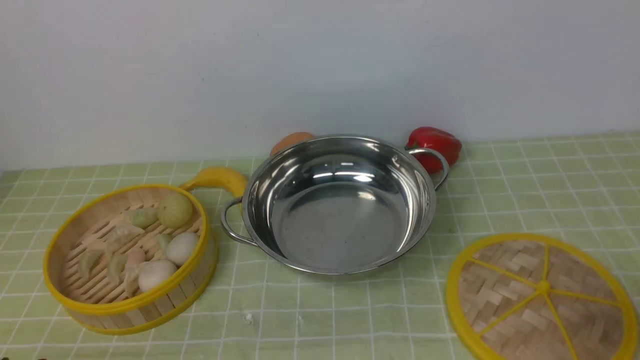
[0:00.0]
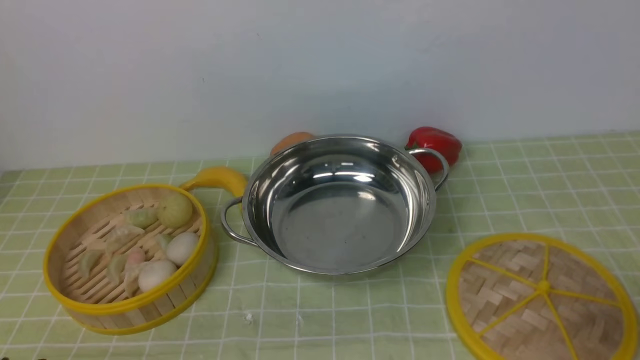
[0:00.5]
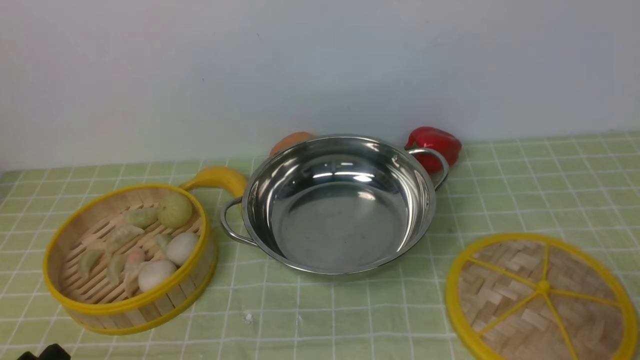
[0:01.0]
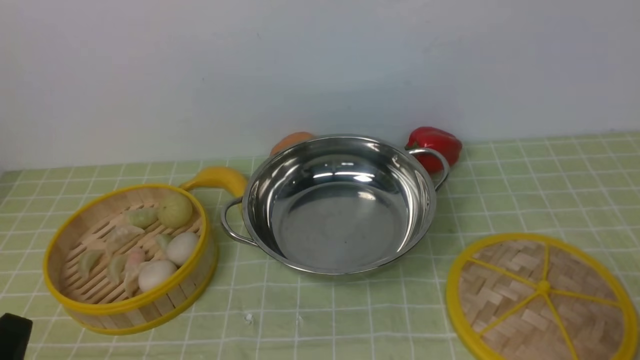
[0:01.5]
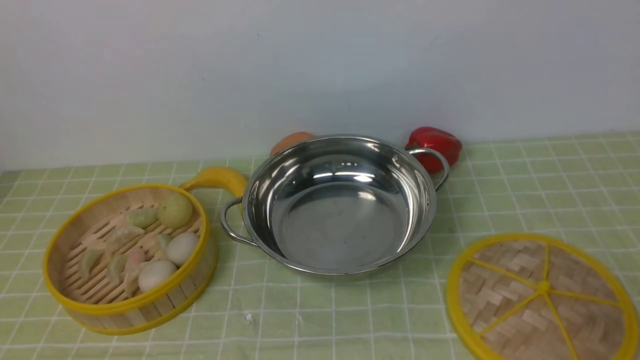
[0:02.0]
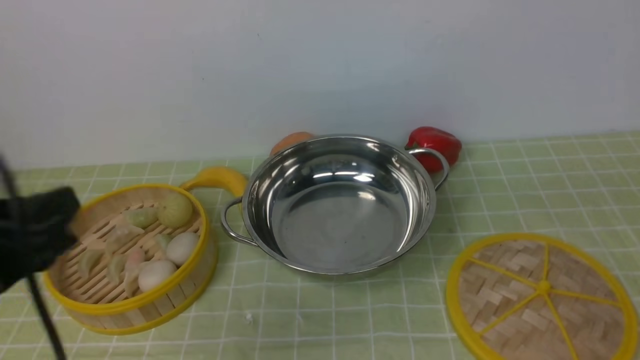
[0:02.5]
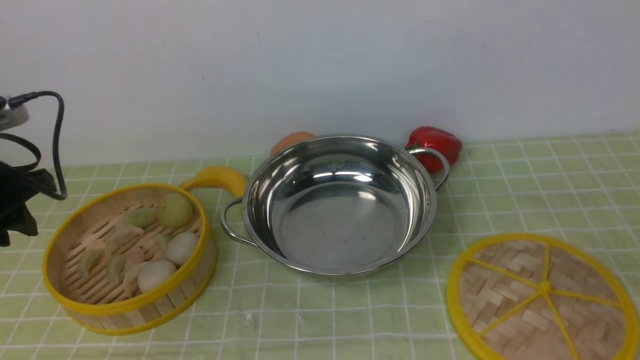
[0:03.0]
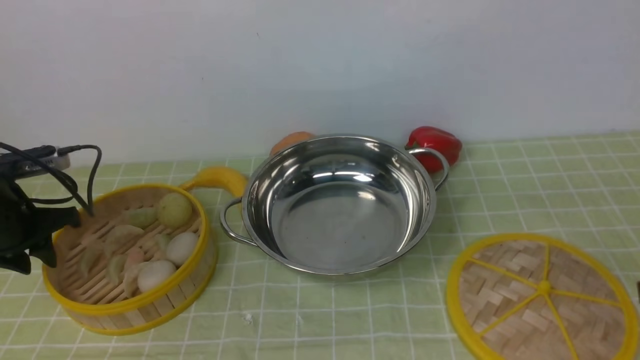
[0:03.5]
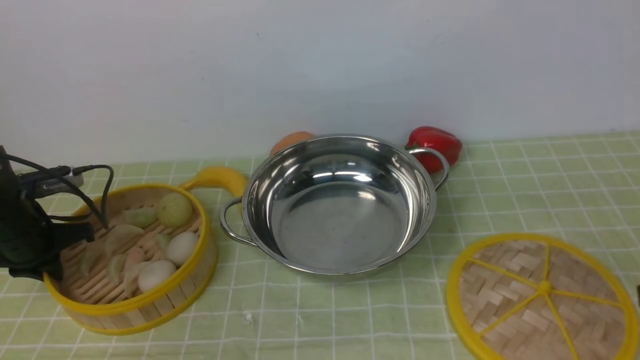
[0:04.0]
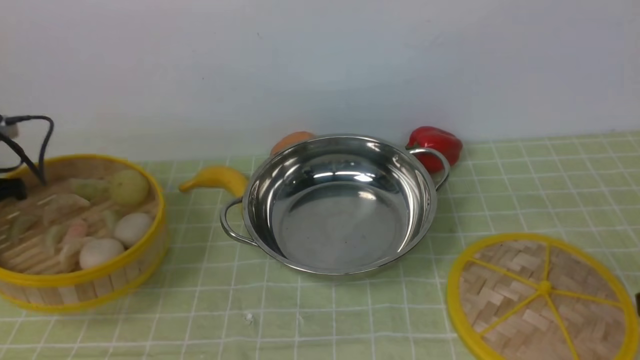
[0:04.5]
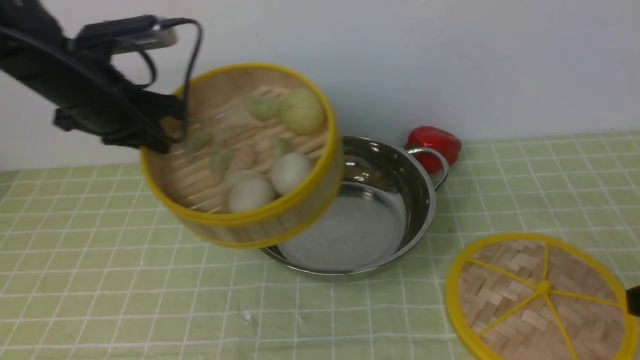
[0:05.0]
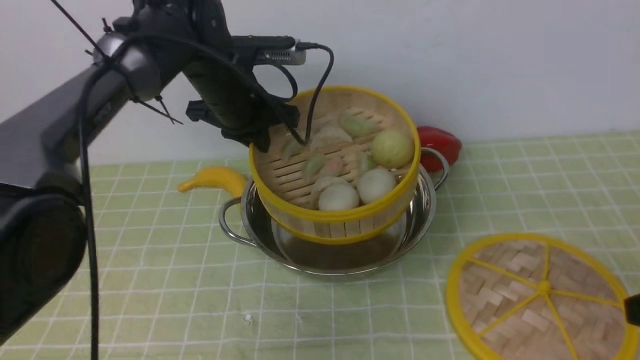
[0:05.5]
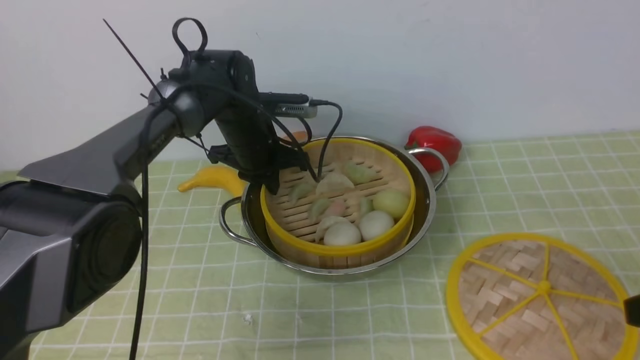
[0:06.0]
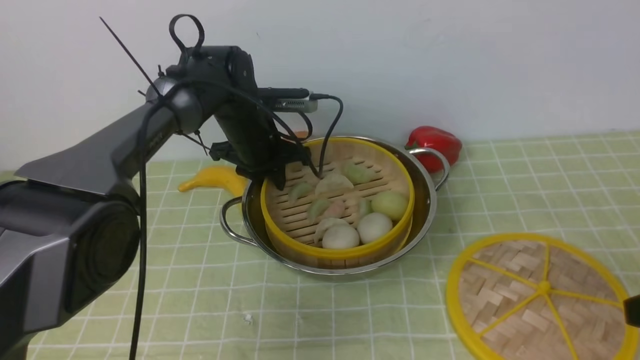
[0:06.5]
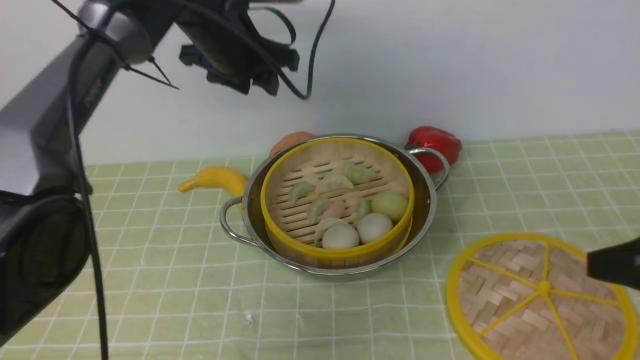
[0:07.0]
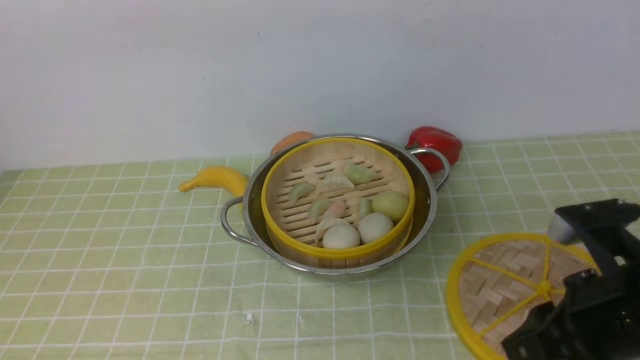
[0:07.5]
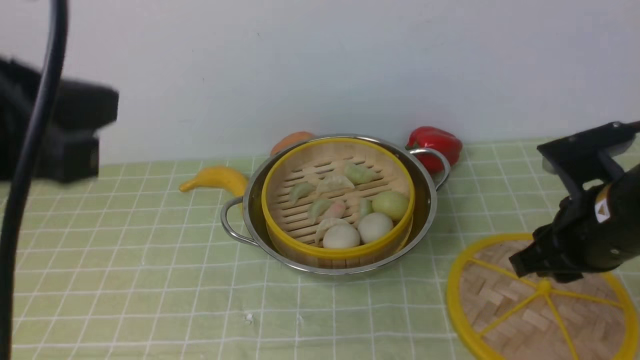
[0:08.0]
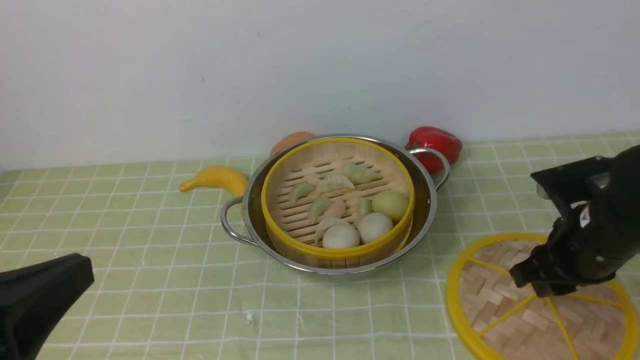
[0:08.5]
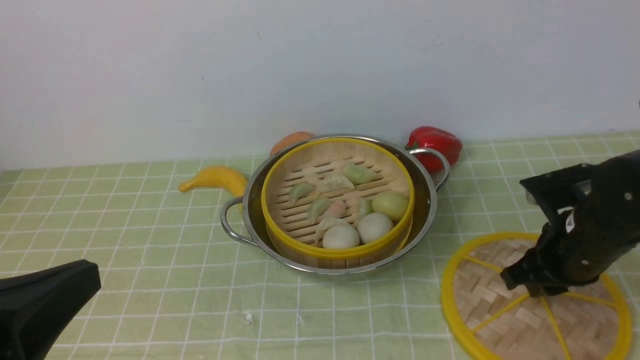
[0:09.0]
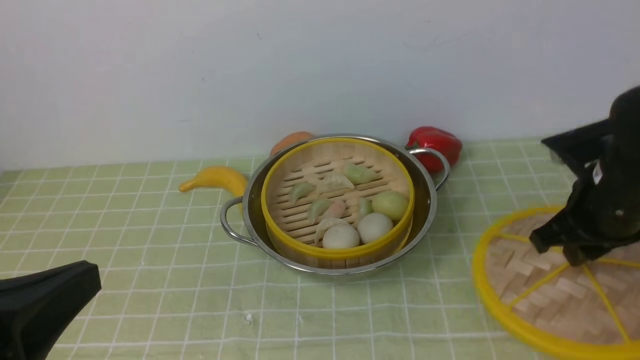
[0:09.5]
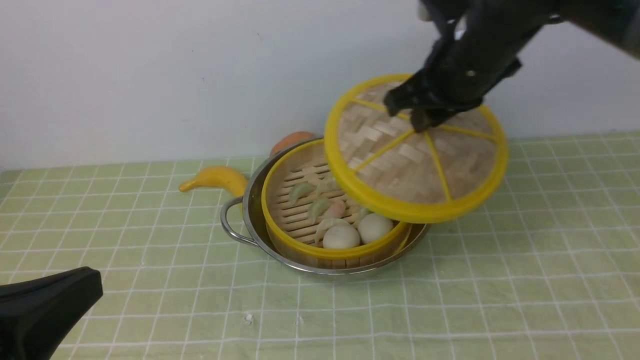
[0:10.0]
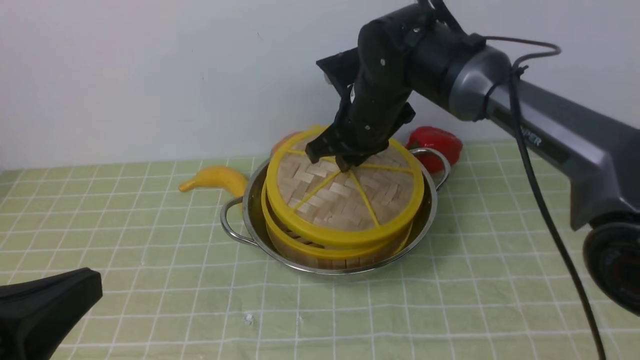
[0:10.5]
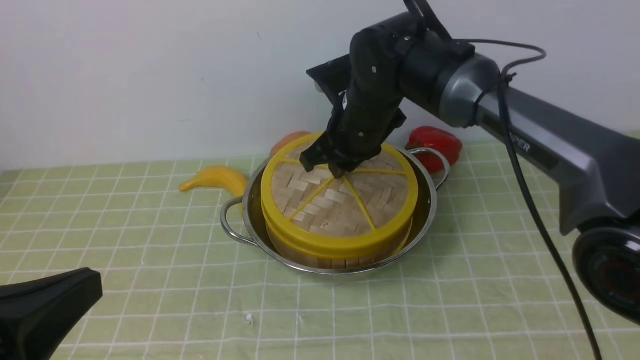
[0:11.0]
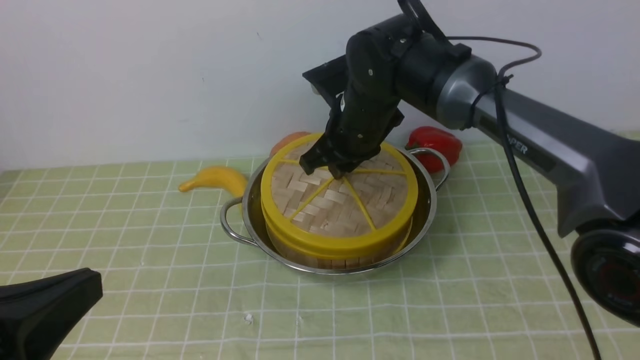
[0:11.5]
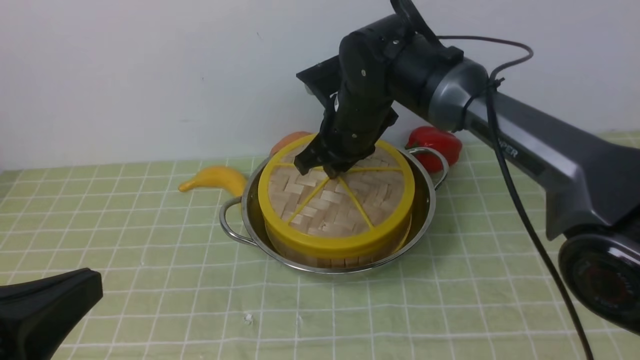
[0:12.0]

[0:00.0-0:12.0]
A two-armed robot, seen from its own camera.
Task of the whole recording: place the steamer in the pot on the green tablecloth, and put the lid on the steamer.
Step, 0:00.0 to 0:04.5: use the left arm to lift the steamer closest to it.
Step, 0:05.0 to 0:07.0: use the left arm to put the steamer into the iron steamer pot in the middle.
Step, 0:07.5 to 0:09.5: use the right arm to lift the lid of the steamer.
0:02.0 to 0:04.0: The left gripper goes about 35 cm forward and downward, and closes its fingers.
0:04.0 to 0:06.0: The left gripper is displaced to the right and forward by approximately 30 cm.
0:06.0 to 0:08.0: The right gripper goes approximately 10 cm forward and to the left. The left gripper heads backward and upward, covering some 40 cm, and opens, then closes again.
0:08.0 to 0:10.0: The right gripper shifts some 20 cm forward, to the left and upward. The left gripper heads downward and backward, covering some 10 cm.
0:10.0 to 0:12.0: The right gripper heads to the left and downward, covering some 15 cm.

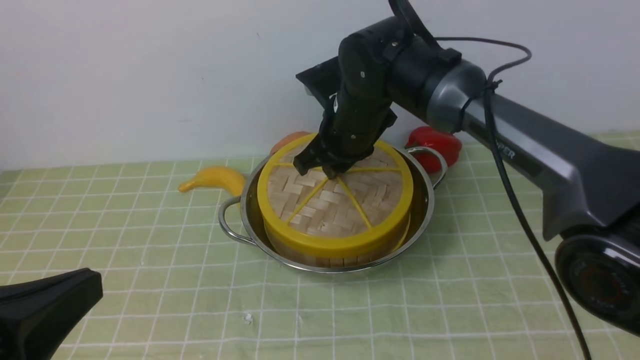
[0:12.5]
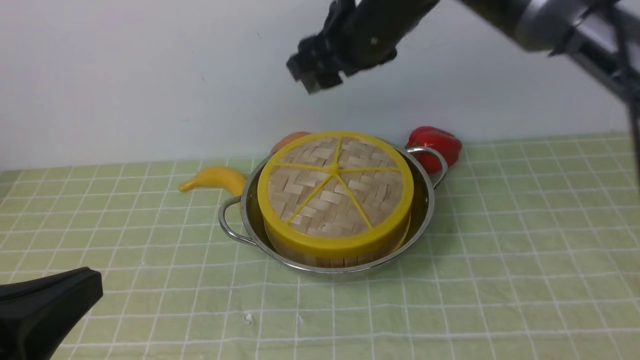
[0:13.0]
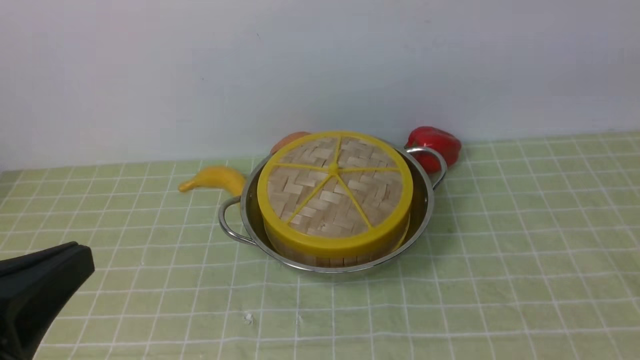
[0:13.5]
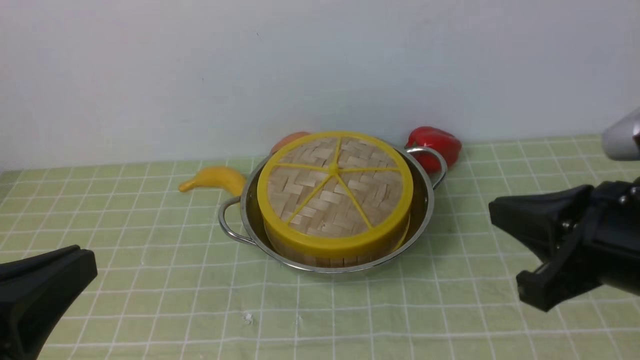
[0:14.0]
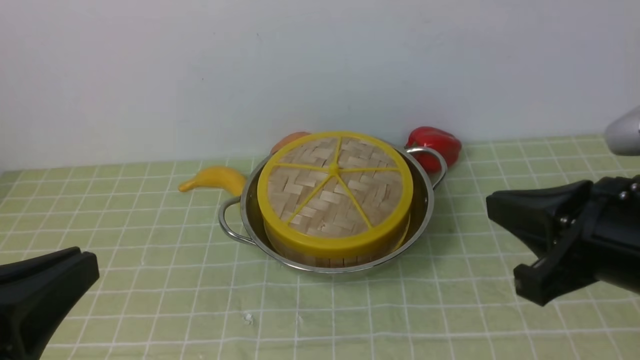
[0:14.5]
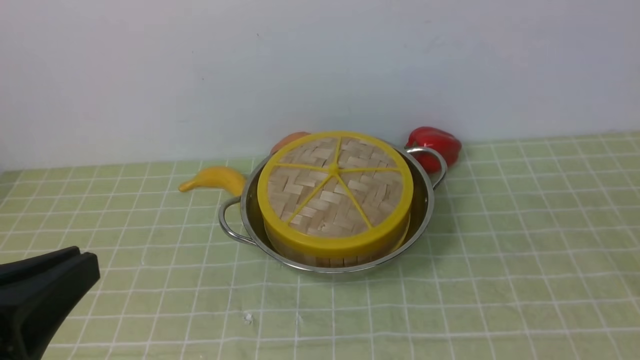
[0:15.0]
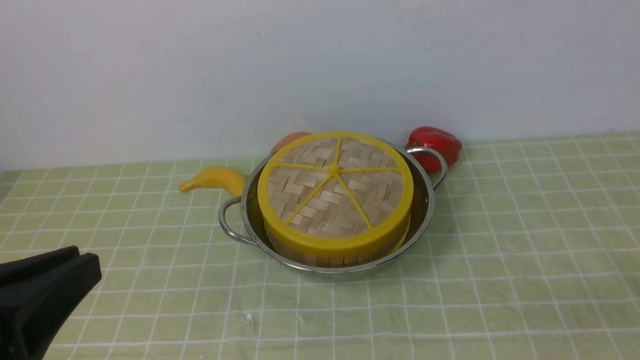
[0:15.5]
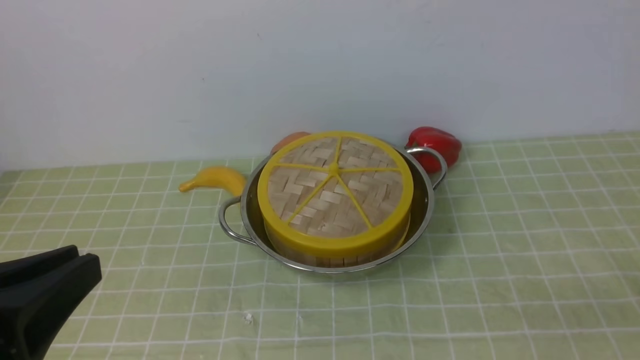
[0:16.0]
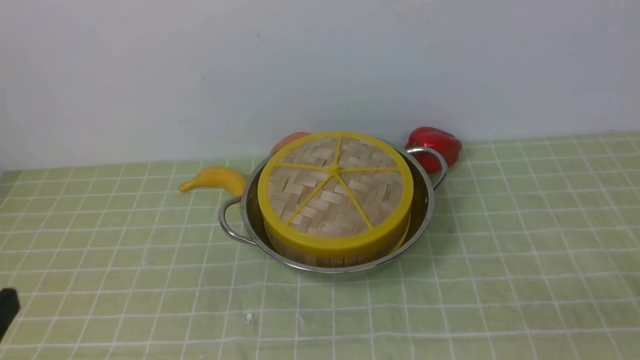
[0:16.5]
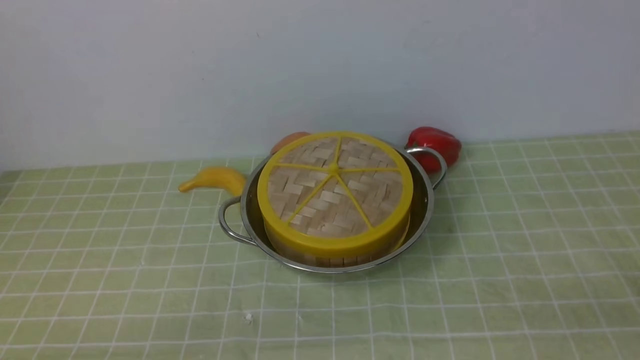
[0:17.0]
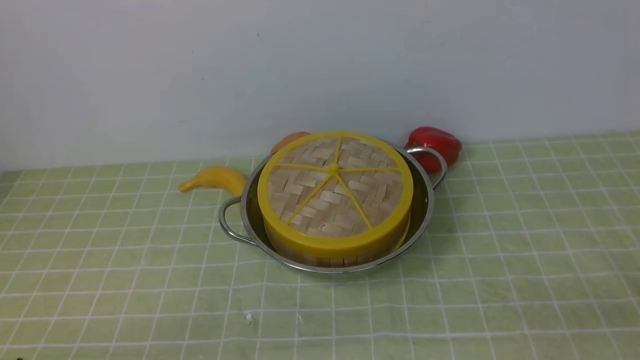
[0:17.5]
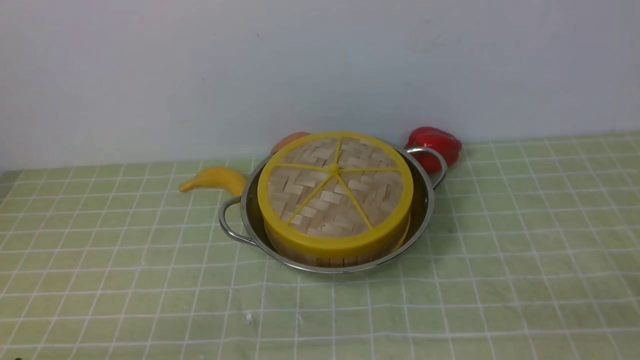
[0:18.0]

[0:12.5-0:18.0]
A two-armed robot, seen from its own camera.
Task of the whole recording: place the steamer in the pot on the green tablecloth, and put the lid on the steamer.
0:12.5 to 0:14.5: The right gripper shifts approximately 30 cm backward and to the right, and closes up.
0:14.5 to 0:16.0: The right gripper heads to the right, backward and downward, covering about 20 cm, and opens.
0:16.0 to 0:18.0: The left gripper goes some 15 cm downward.
